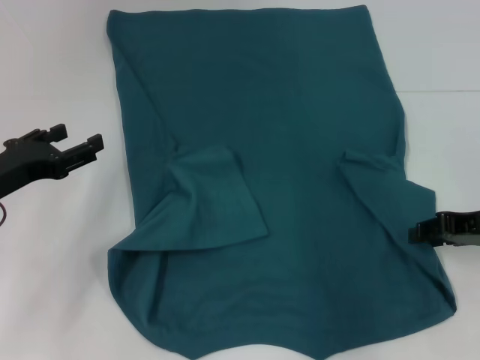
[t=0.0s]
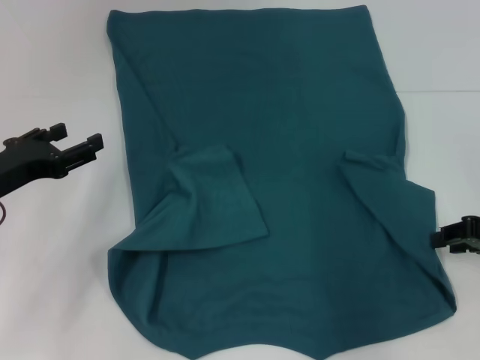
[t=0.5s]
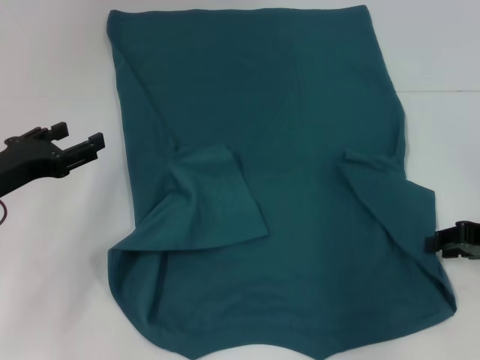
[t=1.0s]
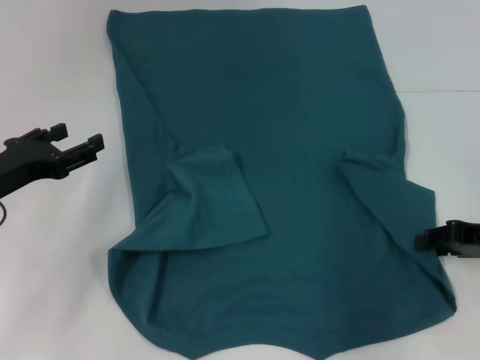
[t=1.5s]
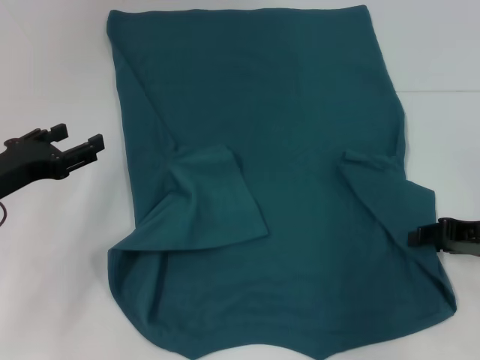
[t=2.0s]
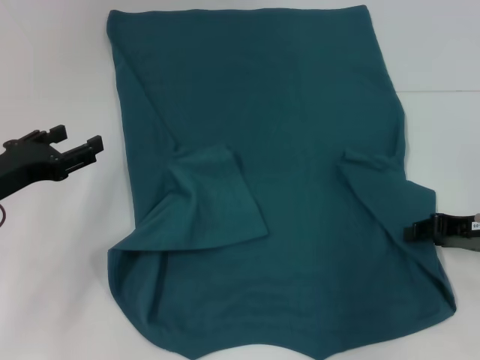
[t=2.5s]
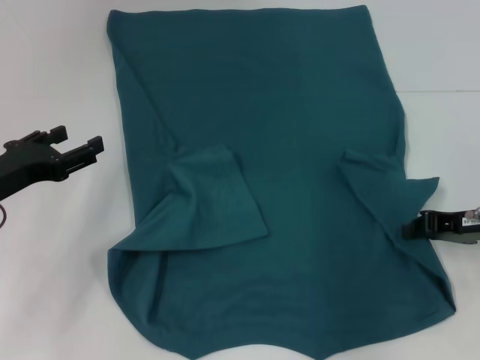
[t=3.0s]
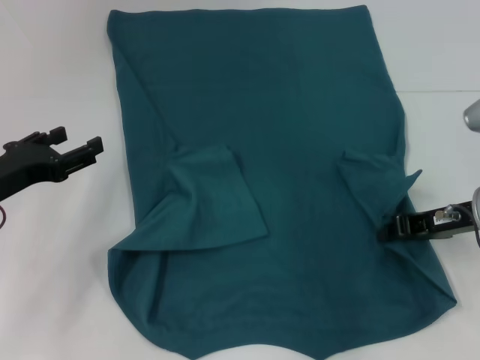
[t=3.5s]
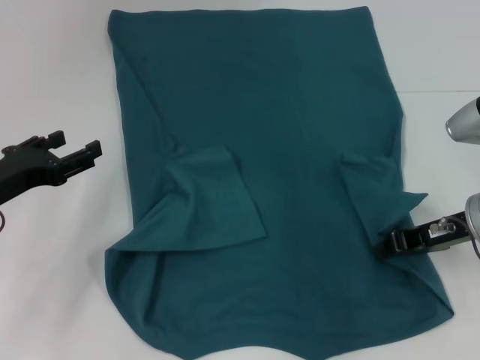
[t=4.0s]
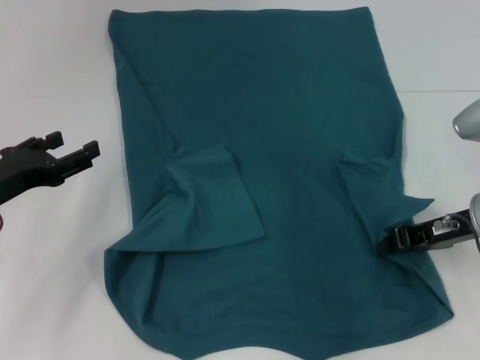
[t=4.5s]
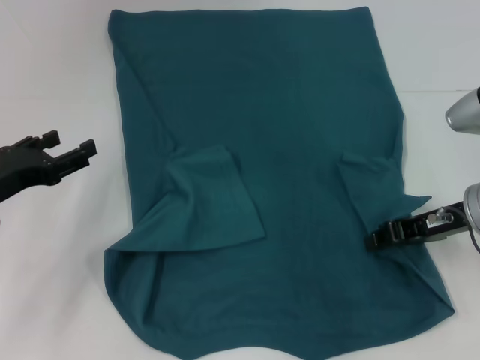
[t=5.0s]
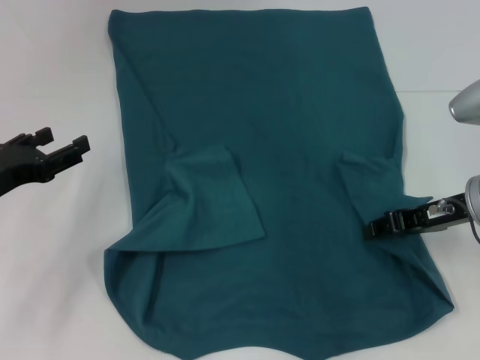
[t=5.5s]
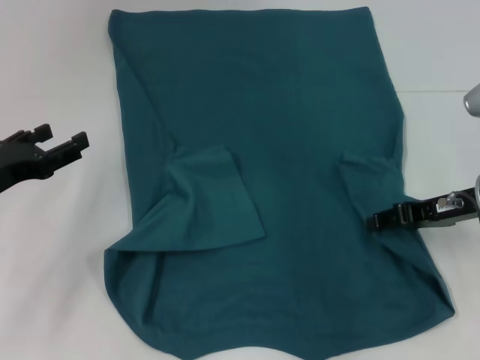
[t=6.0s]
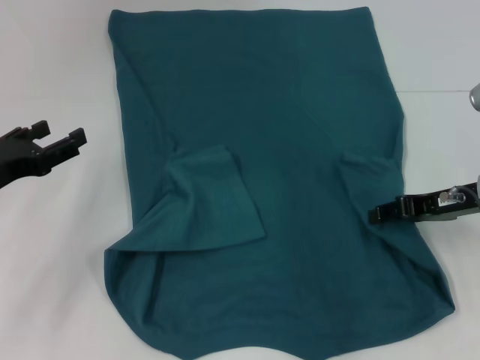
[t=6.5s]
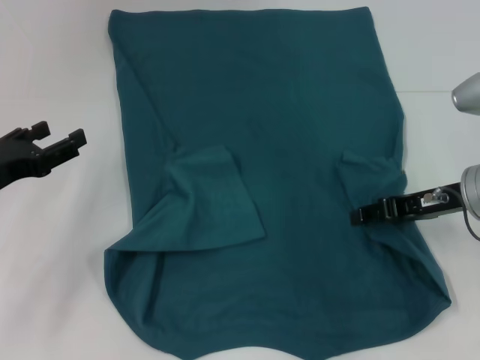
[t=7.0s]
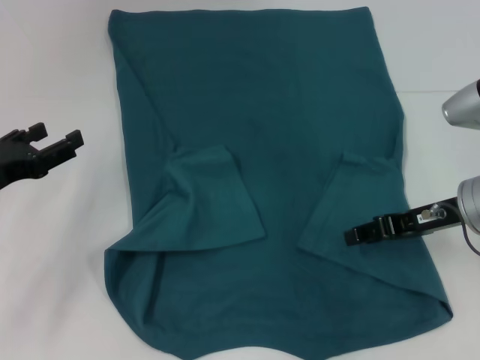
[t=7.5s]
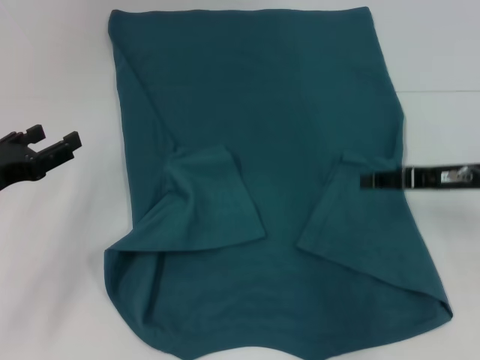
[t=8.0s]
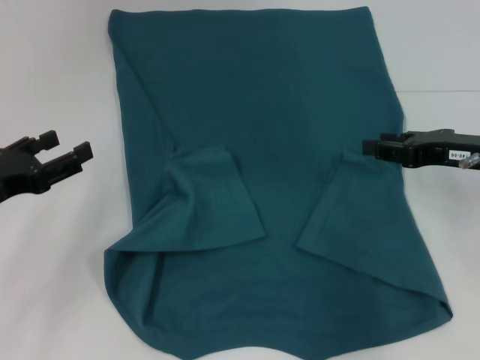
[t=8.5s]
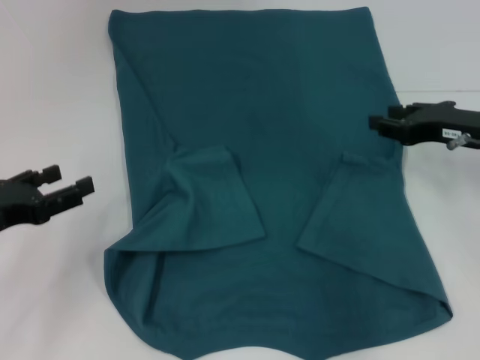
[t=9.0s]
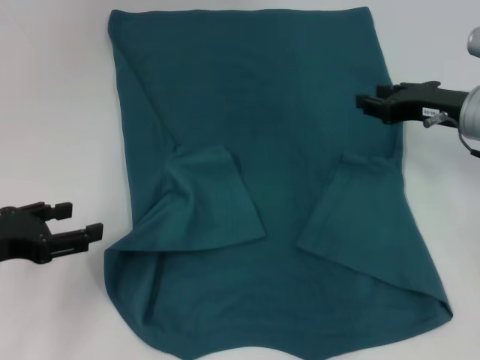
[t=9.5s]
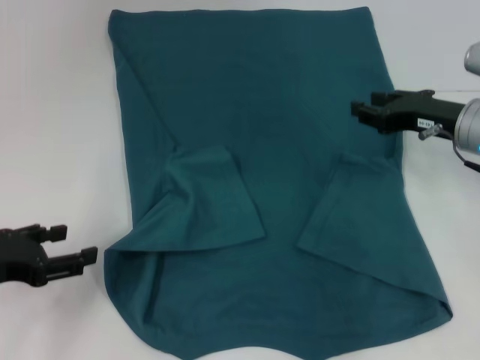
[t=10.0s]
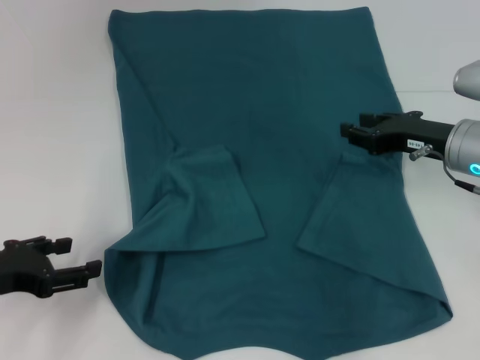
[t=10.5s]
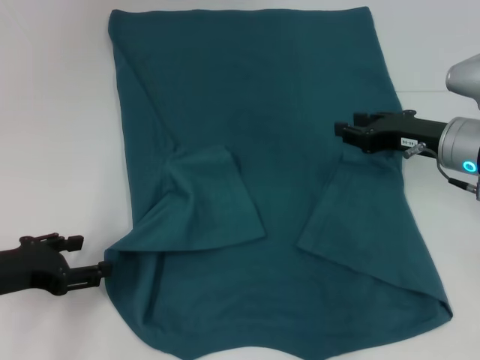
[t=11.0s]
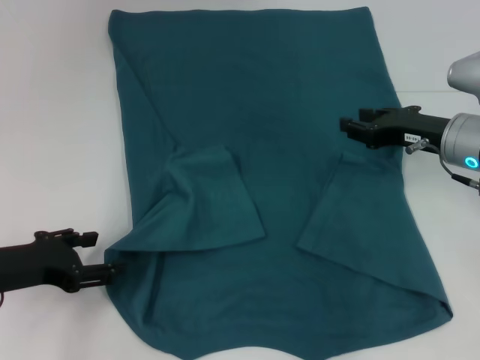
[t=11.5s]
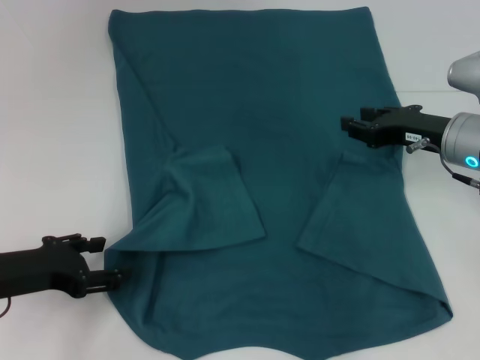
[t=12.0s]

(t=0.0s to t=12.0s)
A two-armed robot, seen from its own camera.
Step, t=0.0s - t=7.5s: Fold the bottom right sleeve to the right.
t=2.0s - t=4.0s: The right gripper shifts some 5 cm to the left, and closes.
t=4.0s - t=6.0s: The right gripper opens its fingers.
t=6.0s - t=8.0s: The grippers make only small movements.
t=8.0s - t=10.0s: The right gripper moves forward, about 5 cm.
t=10.0s - t=12.0s: The grippers stay close to where they were, moving slightly.

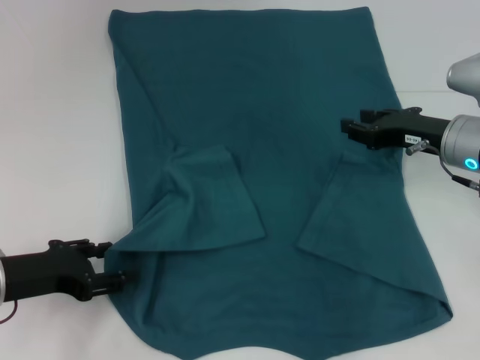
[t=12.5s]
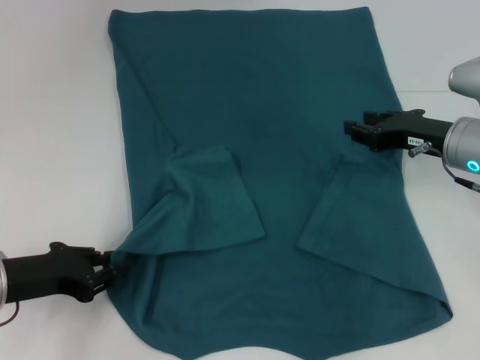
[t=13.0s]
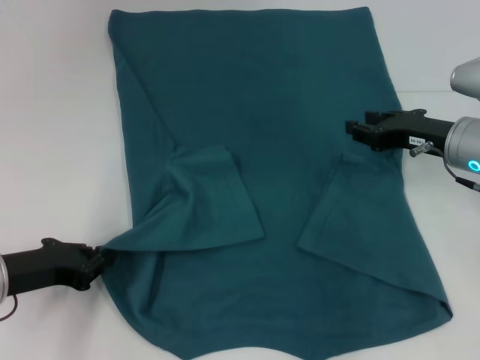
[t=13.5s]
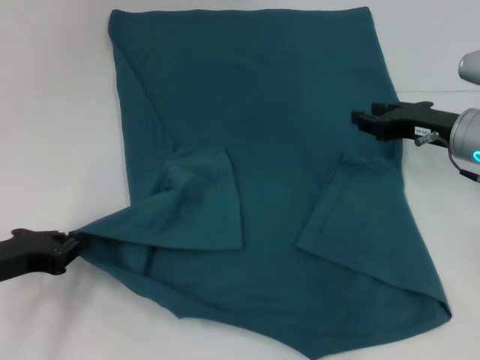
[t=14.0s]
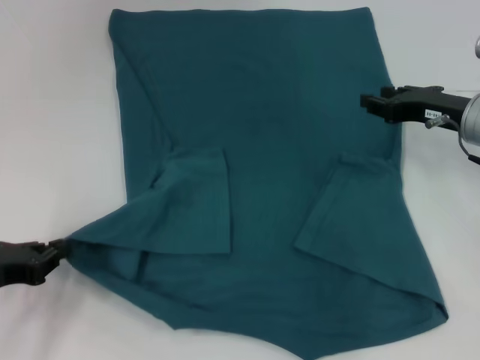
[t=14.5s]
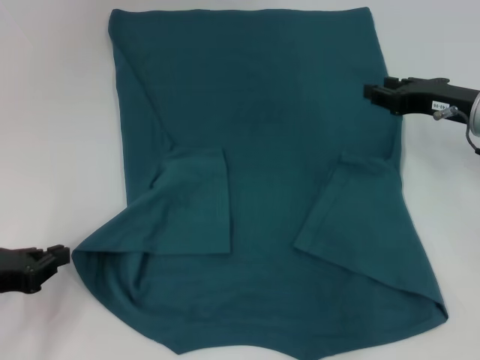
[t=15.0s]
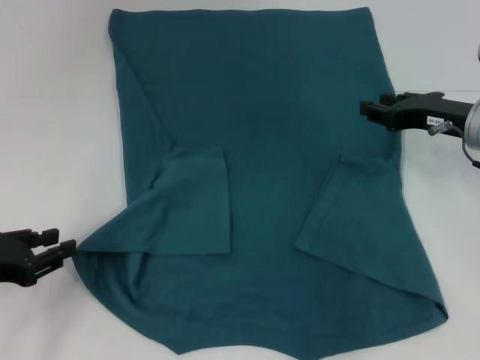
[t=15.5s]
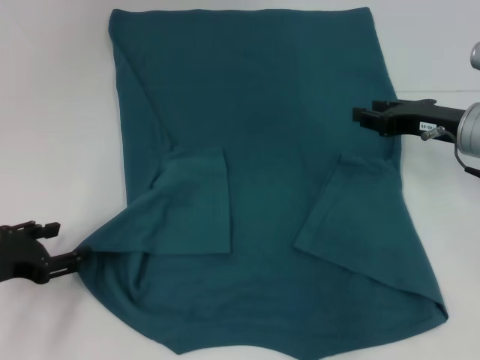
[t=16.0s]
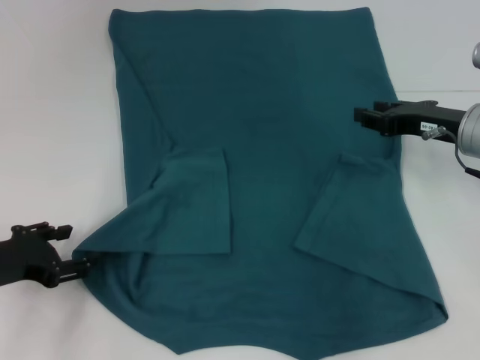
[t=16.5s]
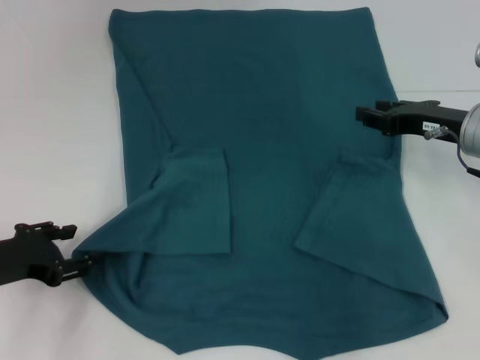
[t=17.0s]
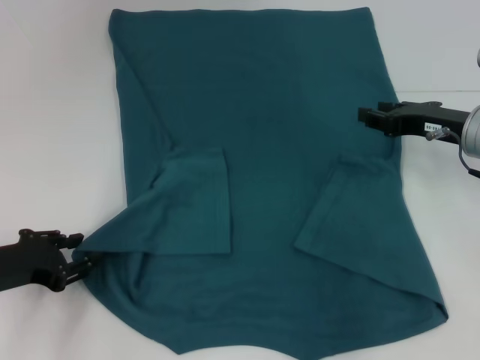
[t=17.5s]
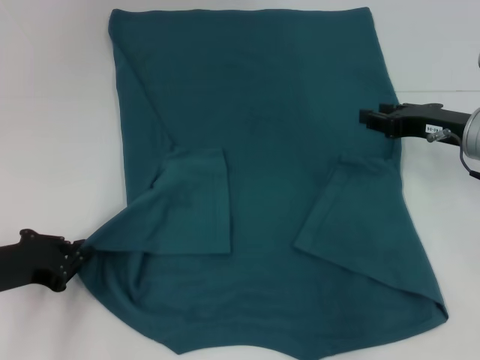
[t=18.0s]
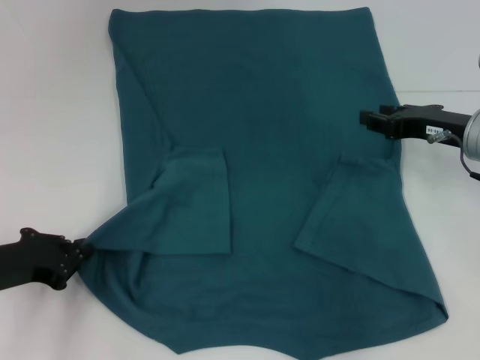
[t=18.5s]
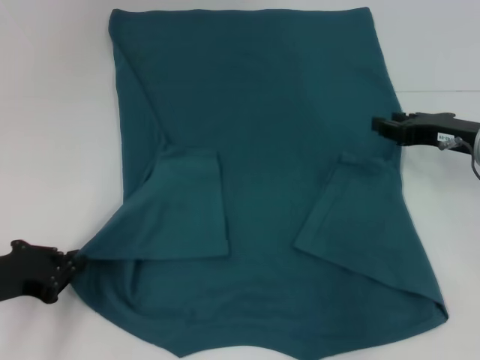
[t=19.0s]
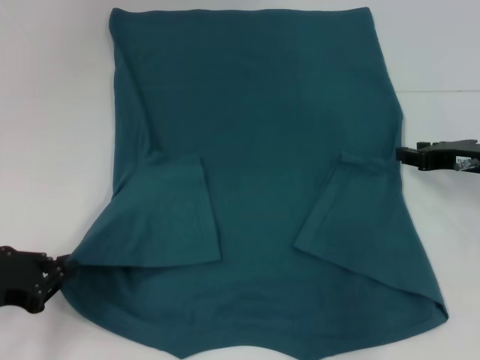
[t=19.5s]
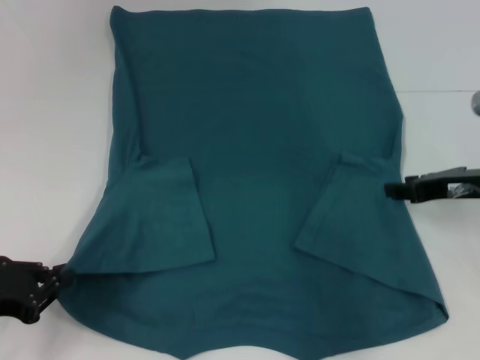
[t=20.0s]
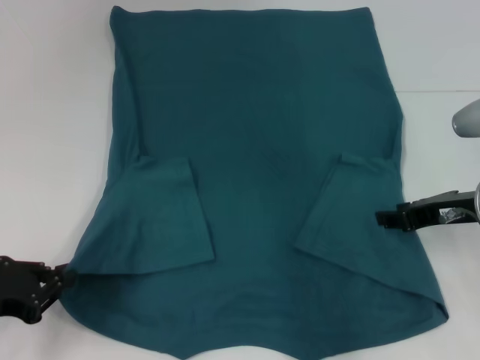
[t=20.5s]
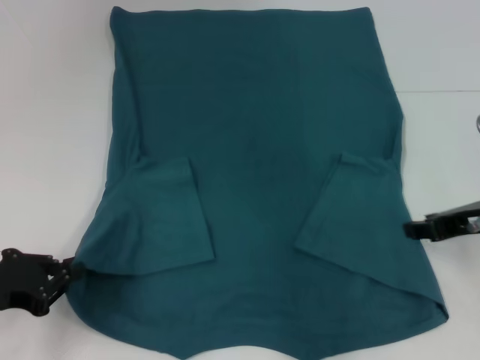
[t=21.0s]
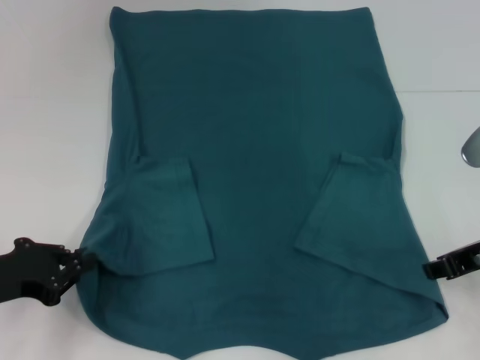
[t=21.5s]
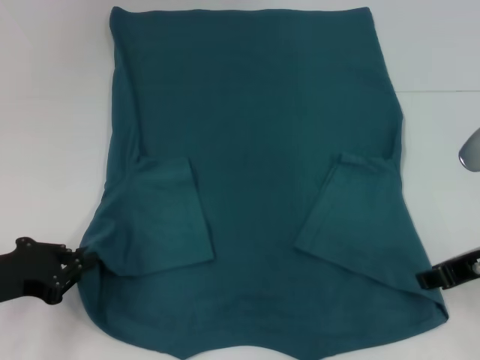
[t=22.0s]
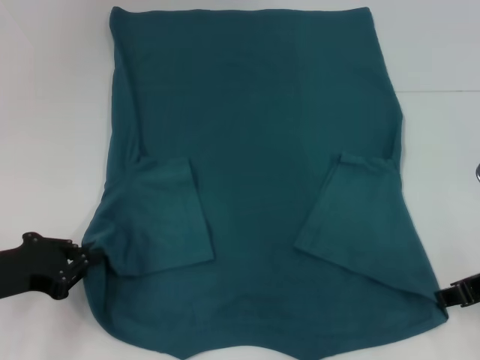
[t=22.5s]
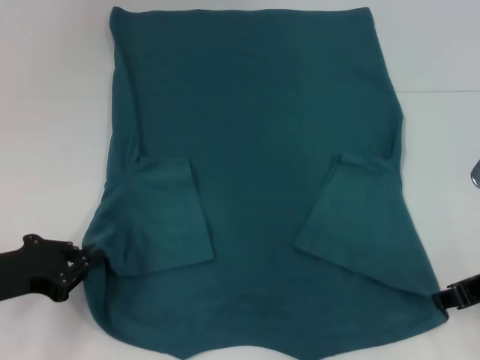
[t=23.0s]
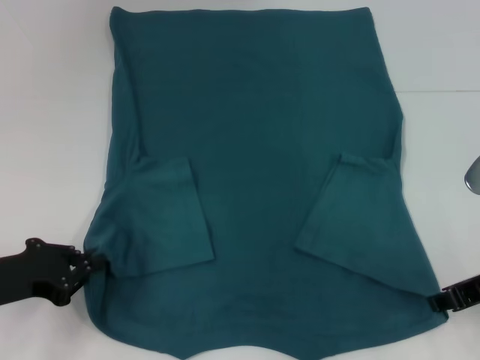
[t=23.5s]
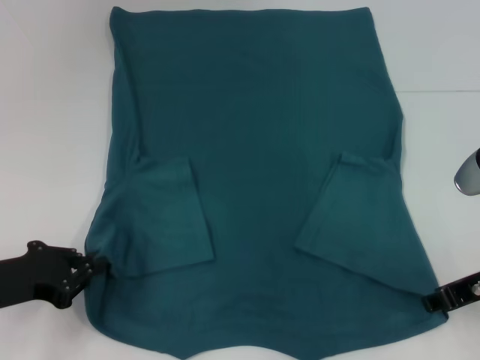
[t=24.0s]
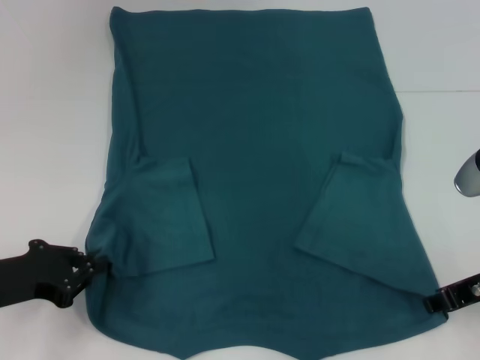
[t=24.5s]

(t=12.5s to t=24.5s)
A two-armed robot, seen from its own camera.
Step, t=12.5s - t=20.5s: Grab the bottom left corner with your left hand.
t=12.5s - t=14.5s: The left gripper closes its fingers.
t=14.5s - t=16.5s: The left gripper opens its fingers.
t=16.5s - t=18.5s: The left gripper closes up.
t=18.5s - t=20.5s: The right gripper heads backward, covering some 5 cm. The left gripper ends up about 5 cm from where it was.
t=20.5s - t=22.5s: The right gripper moves backward, some 5 cm.
t=22.5s - t=24.5s: The grippers make only small movements.

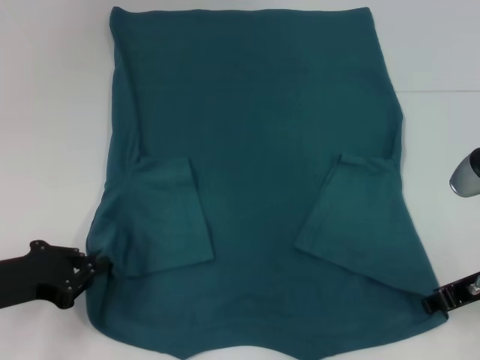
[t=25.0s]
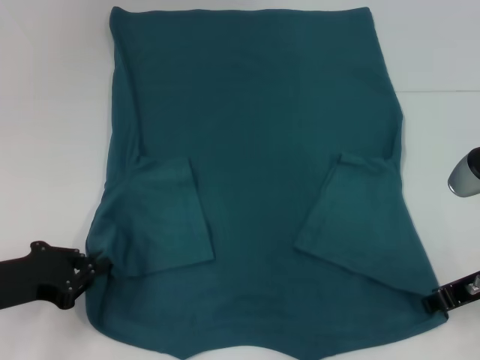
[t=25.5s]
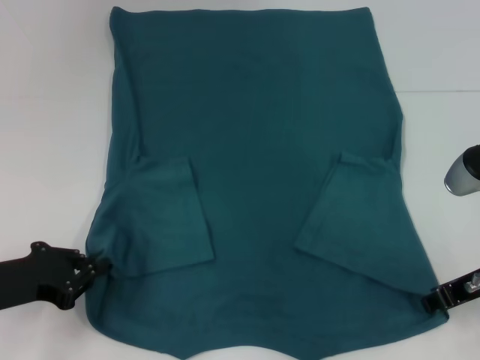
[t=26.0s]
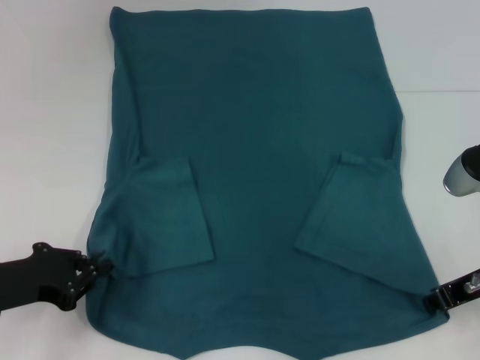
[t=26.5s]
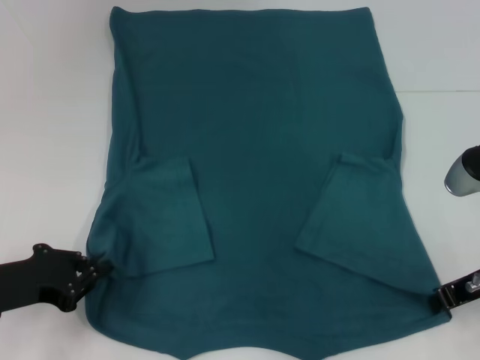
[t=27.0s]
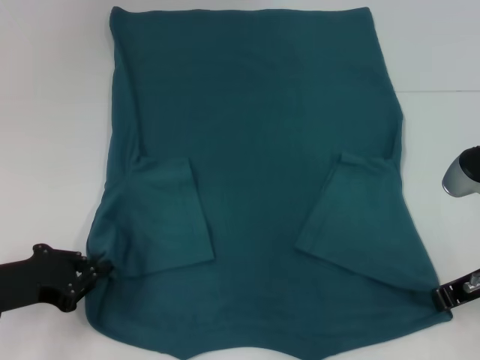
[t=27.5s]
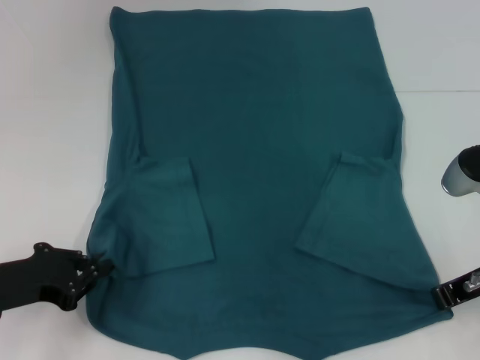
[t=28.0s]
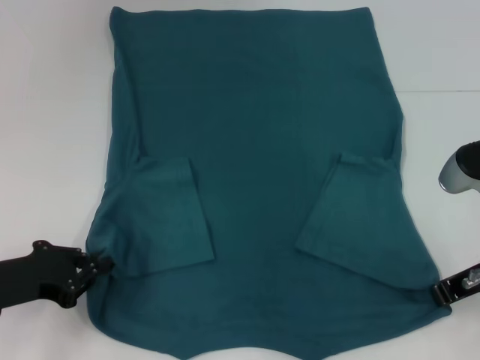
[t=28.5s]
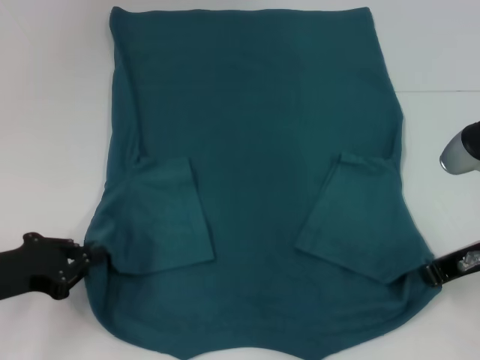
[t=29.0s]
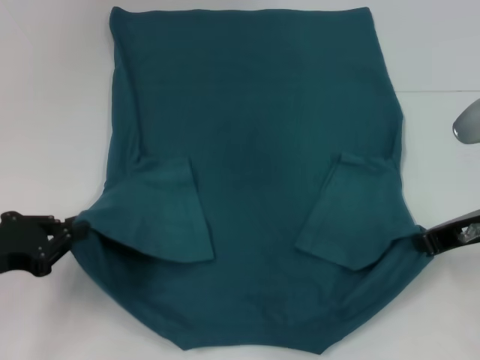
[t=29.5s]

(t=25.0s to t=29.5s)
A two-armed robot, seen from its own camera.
Step, t=25.0s - t=28.5s: Grab the bottom right corner with your right hand.
t=25.0s - t=27.0s: Both grippers stay about where they are.
t=27.0s - t=29.5s: The grippers move only a little.
